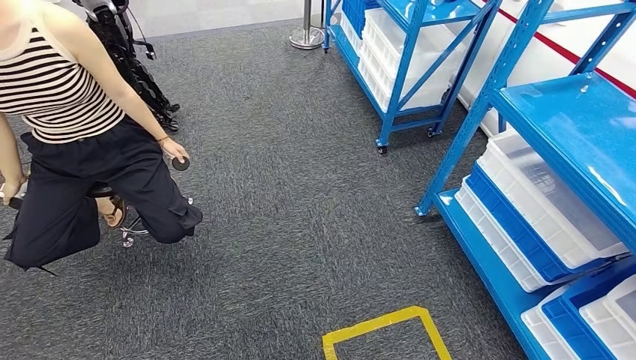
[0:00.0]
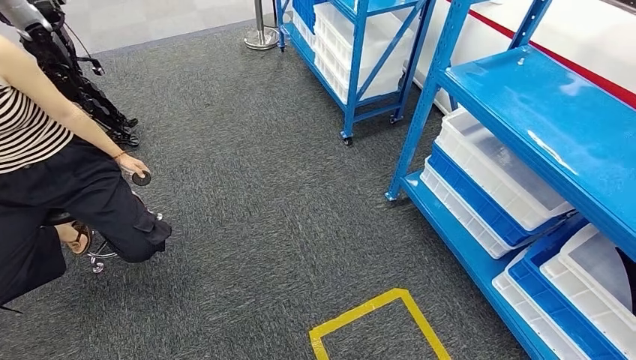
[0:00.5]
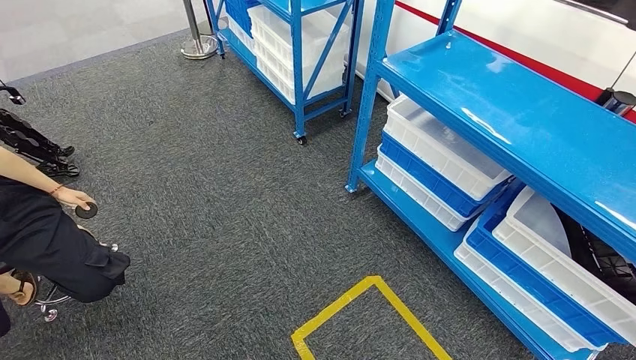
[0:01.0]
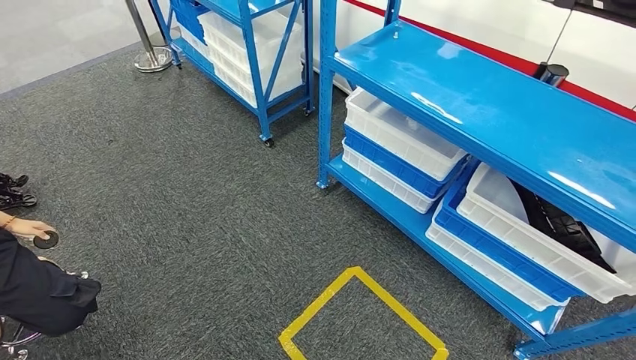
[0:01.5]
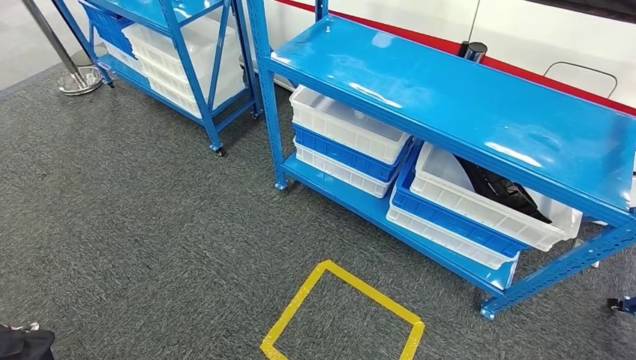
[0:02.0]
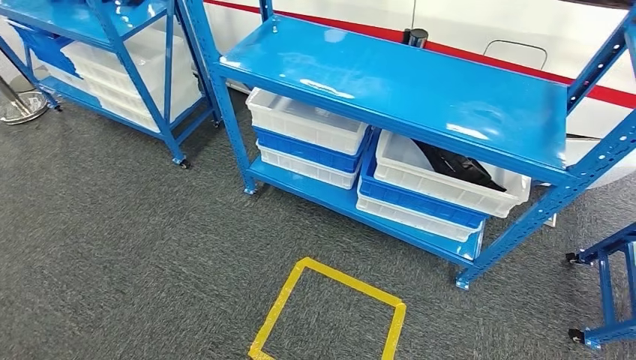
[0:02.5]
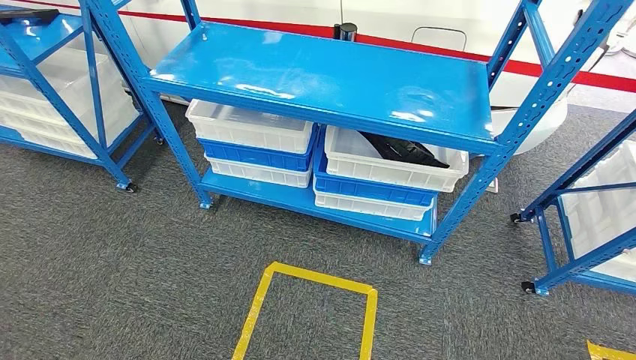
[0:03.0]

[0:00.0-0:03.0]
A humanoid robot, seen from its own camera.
Step, 0:00.0 to 0:03.0: Move to the initial position of the shelf.

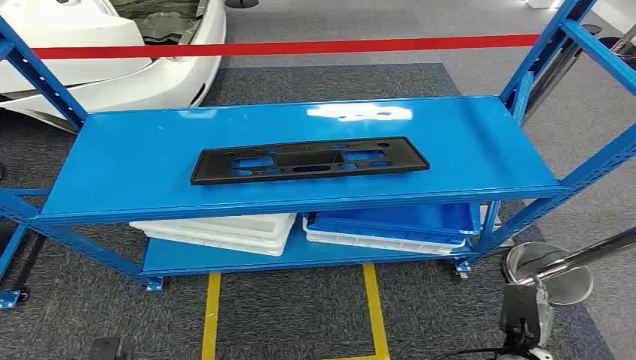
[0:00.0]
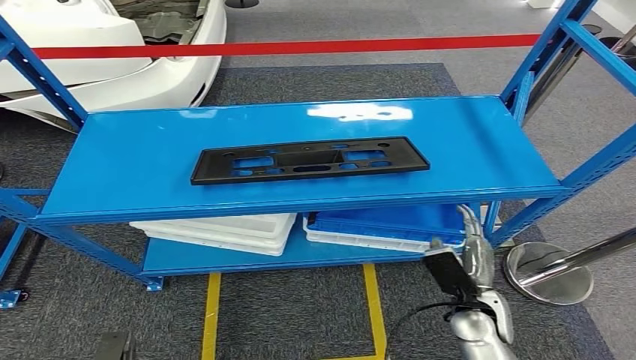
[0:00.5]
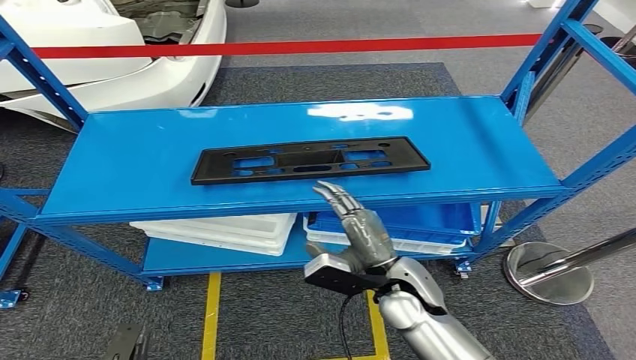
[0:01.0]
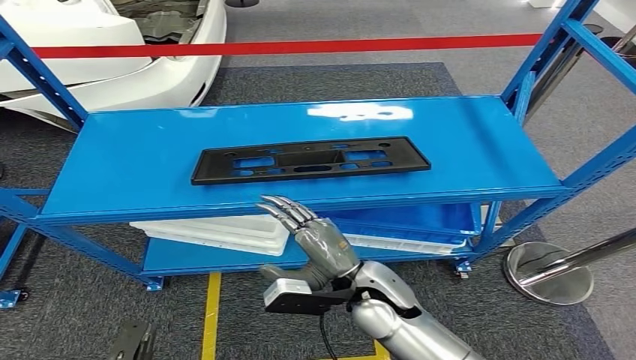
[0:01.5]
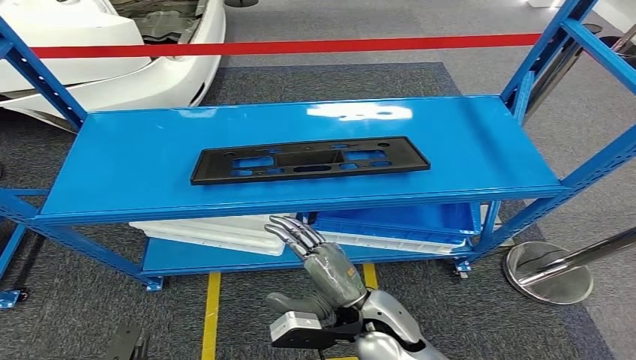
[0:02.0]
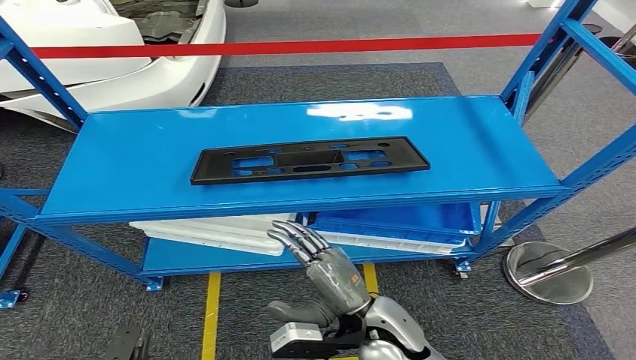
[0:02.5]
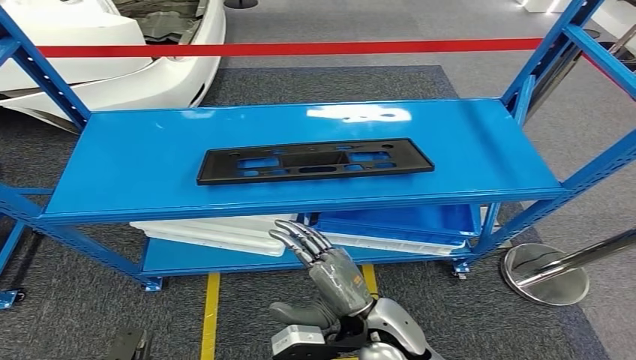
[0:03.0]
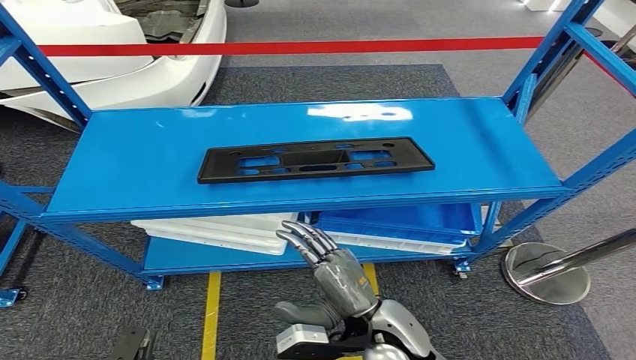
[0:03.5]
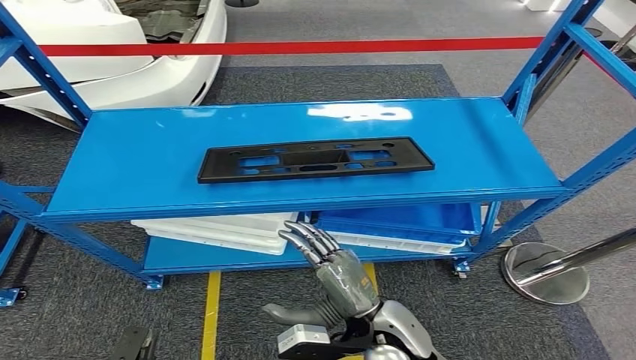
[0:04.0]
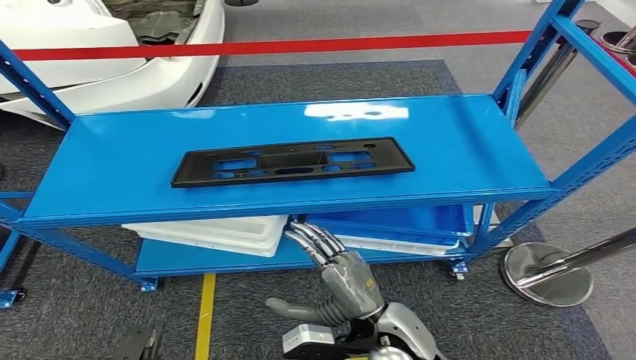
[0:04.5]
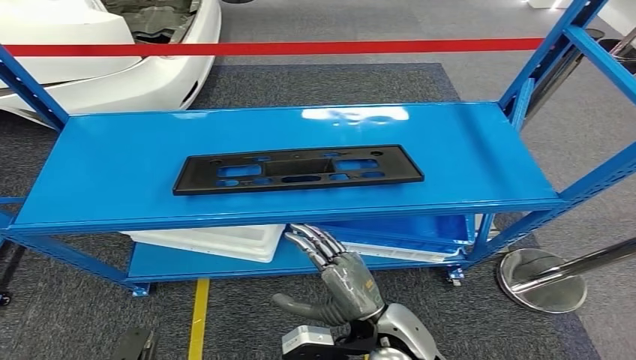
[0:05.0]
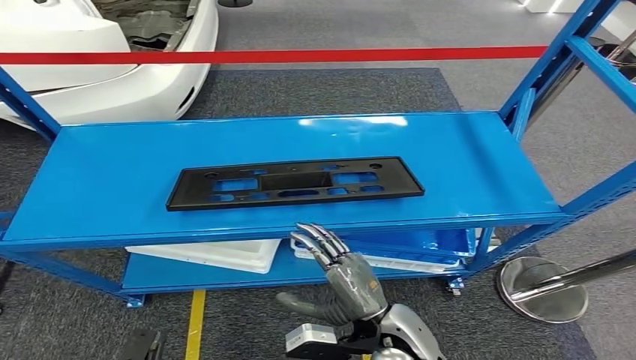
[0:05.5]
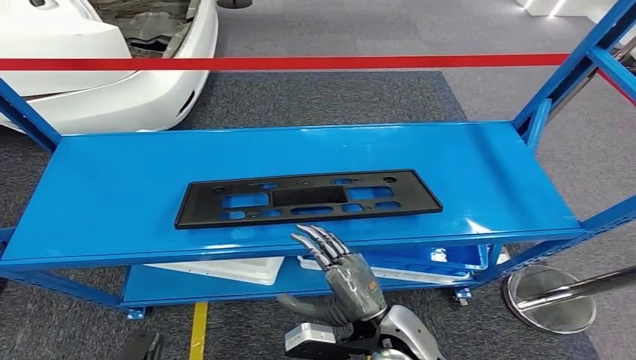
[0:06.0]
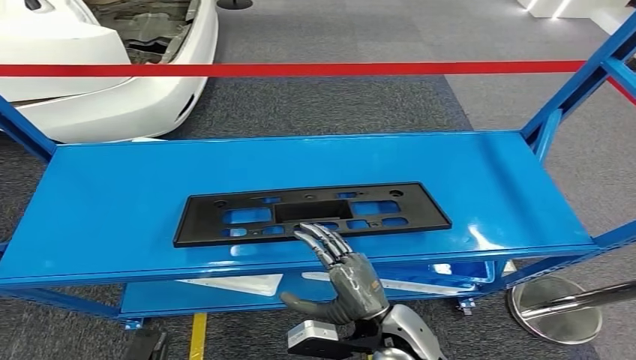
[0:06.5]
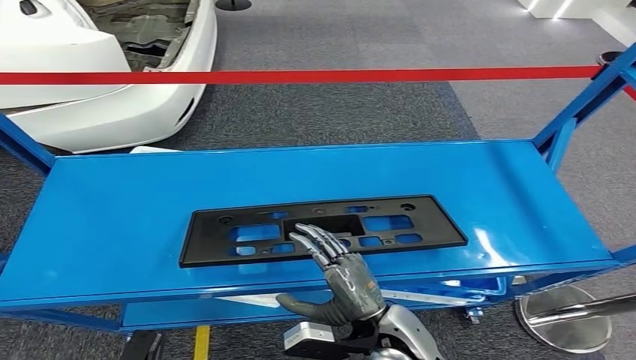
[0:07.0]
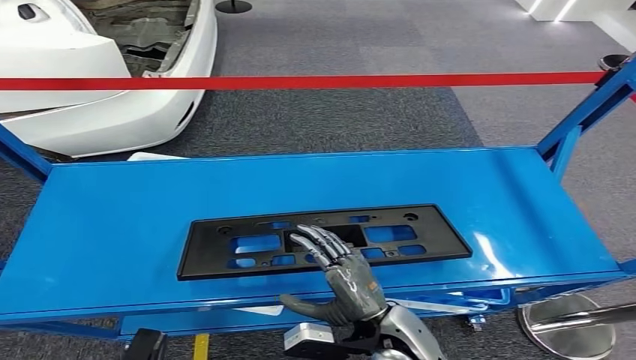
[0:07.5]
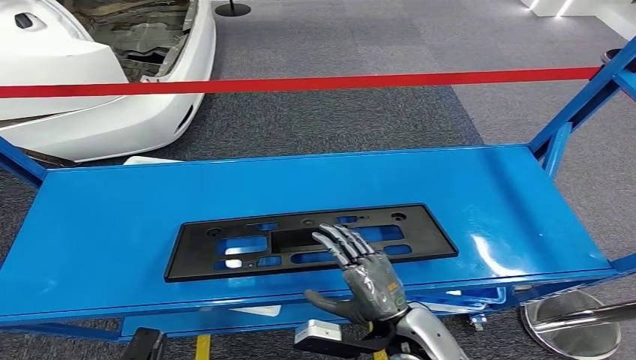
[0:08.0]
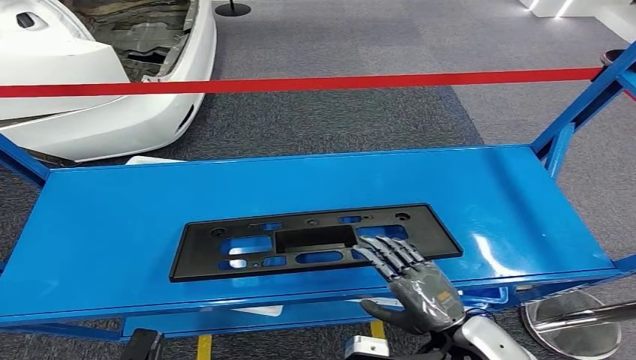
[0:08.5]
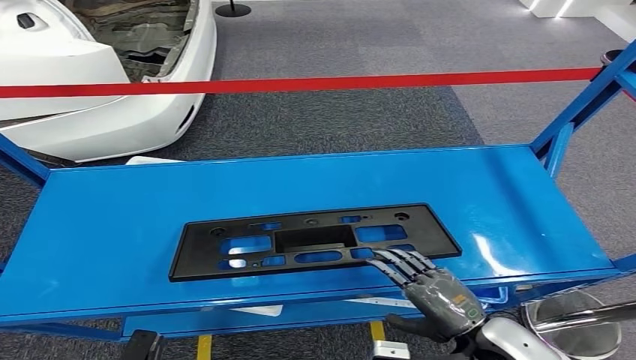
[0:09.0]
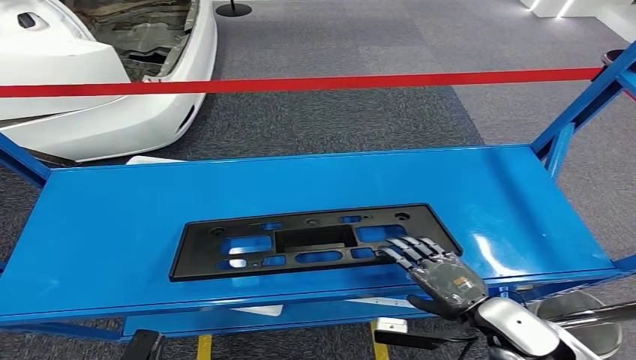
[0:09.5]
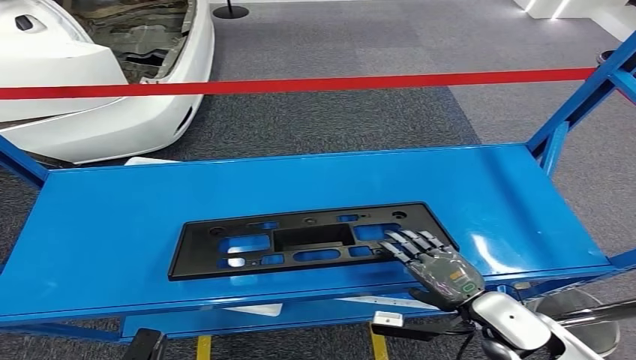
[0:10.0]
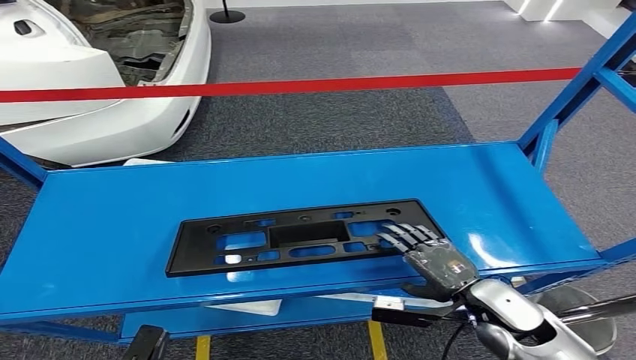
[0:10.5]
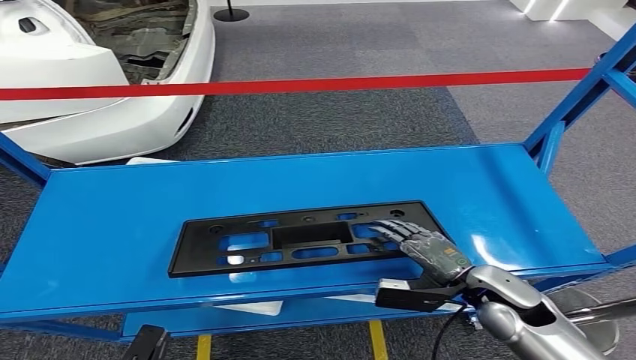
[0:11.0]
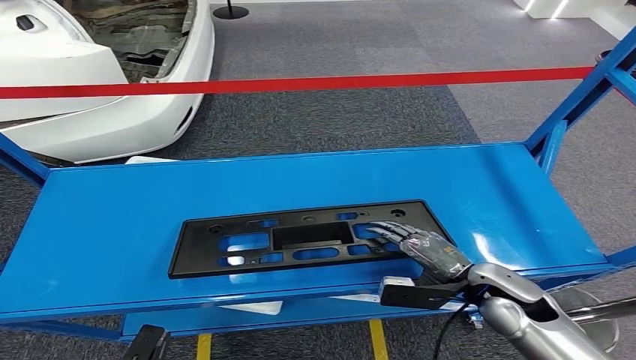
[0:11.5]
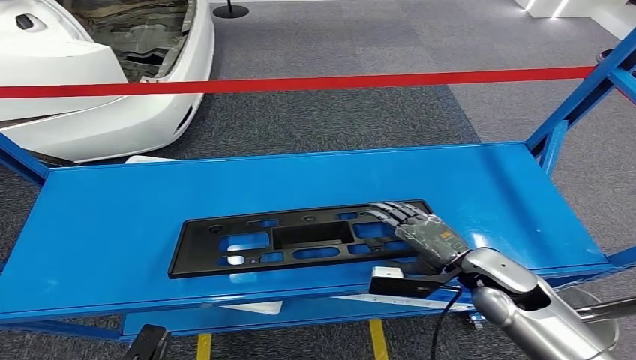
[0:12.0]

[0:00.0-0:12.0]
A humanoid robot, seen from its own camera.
0:02.0 to 0:04.0: There are only small adjustments of the hands.
0:08.0 to 0:10.0: The right hand heads to the right, covering roughly 15 cm.
0:10.0 to 0:12.0: The right hand shifts about 5 cm forward.

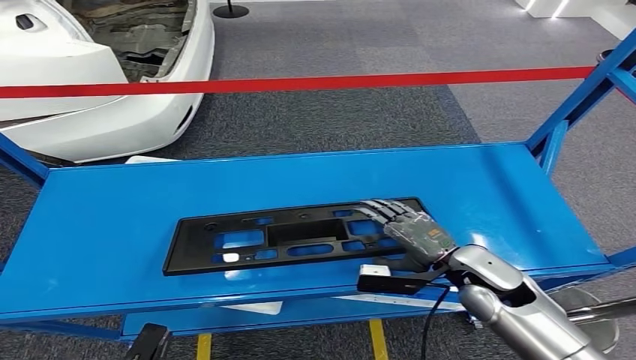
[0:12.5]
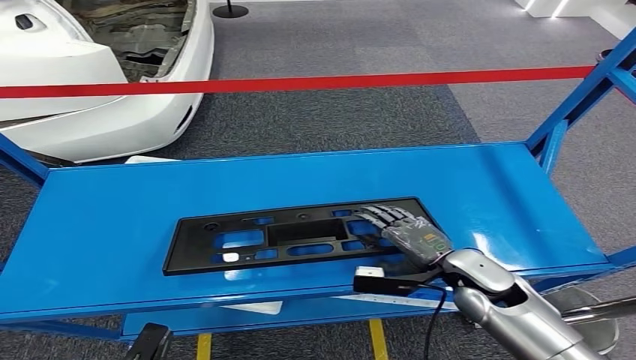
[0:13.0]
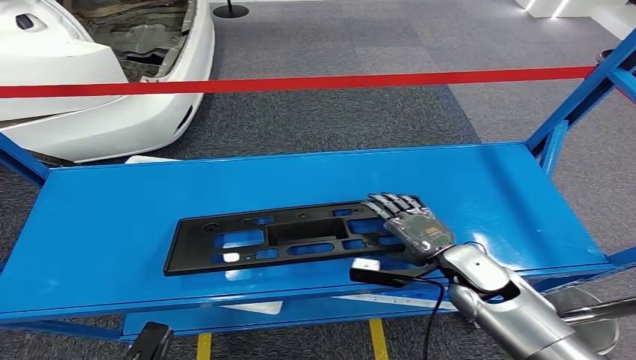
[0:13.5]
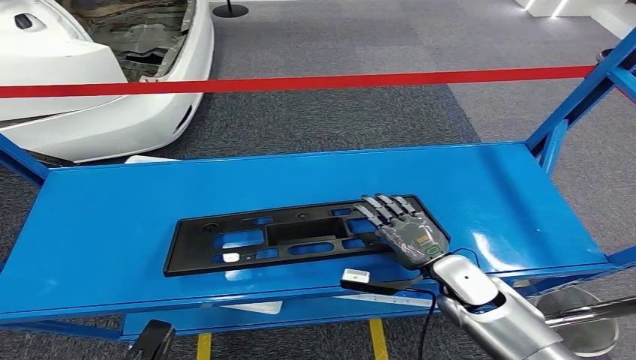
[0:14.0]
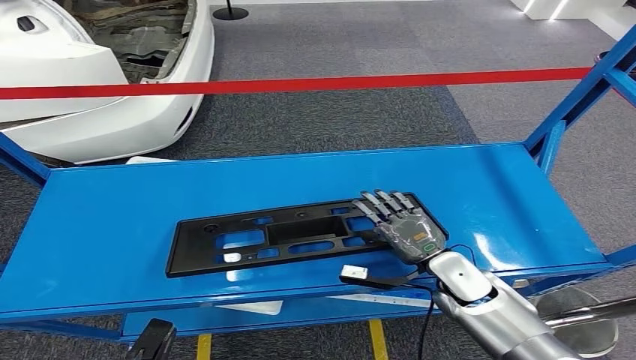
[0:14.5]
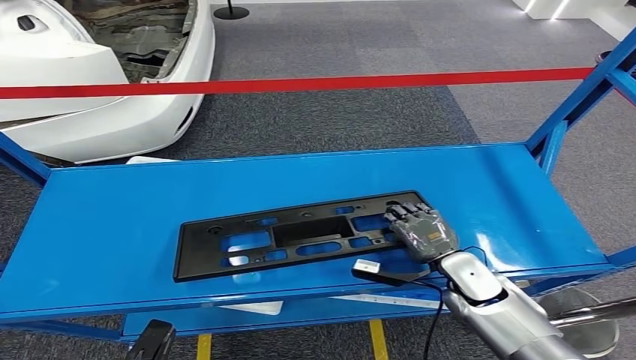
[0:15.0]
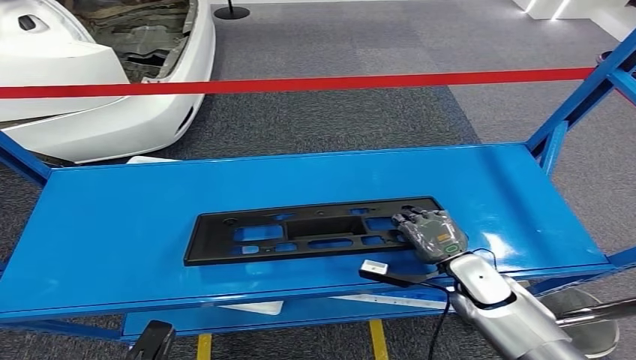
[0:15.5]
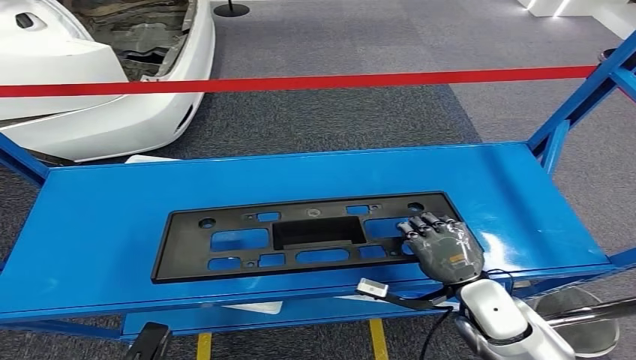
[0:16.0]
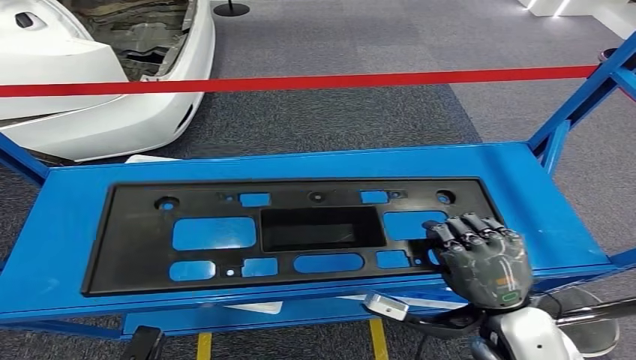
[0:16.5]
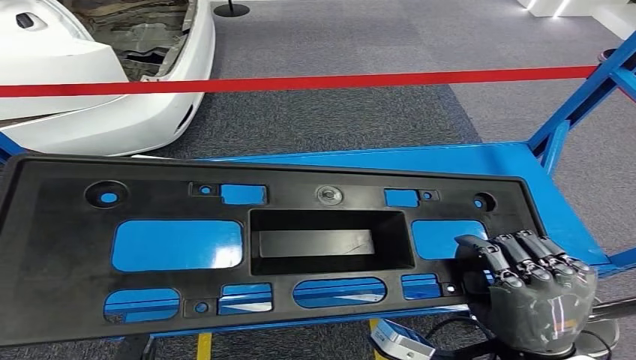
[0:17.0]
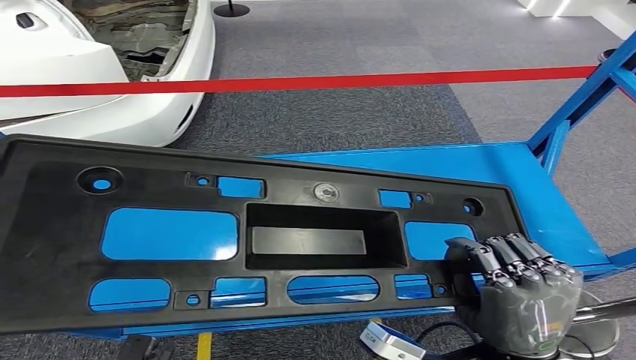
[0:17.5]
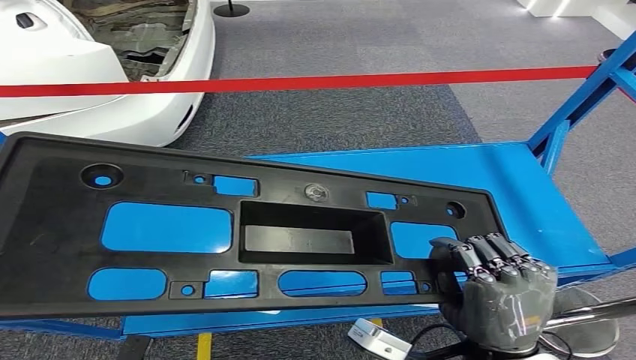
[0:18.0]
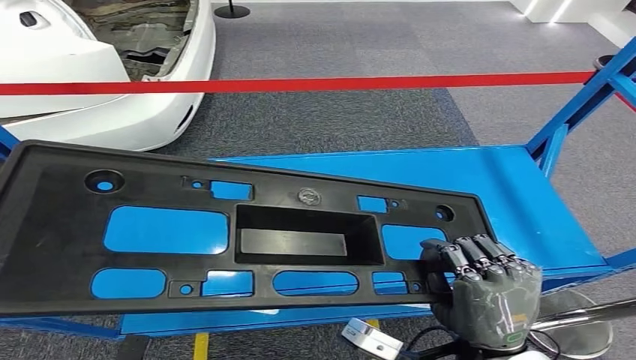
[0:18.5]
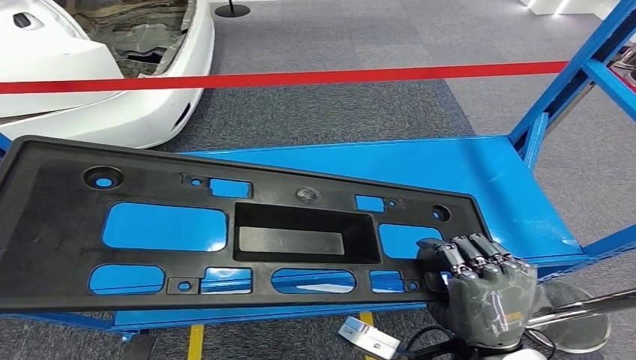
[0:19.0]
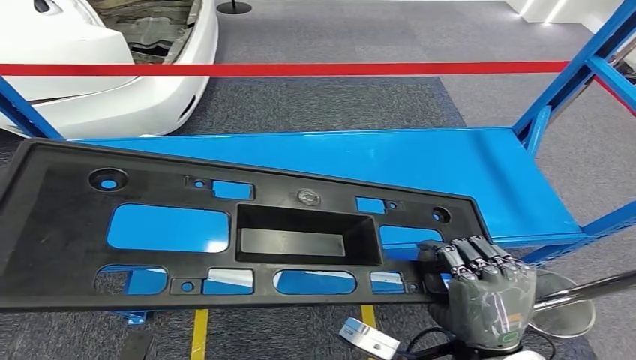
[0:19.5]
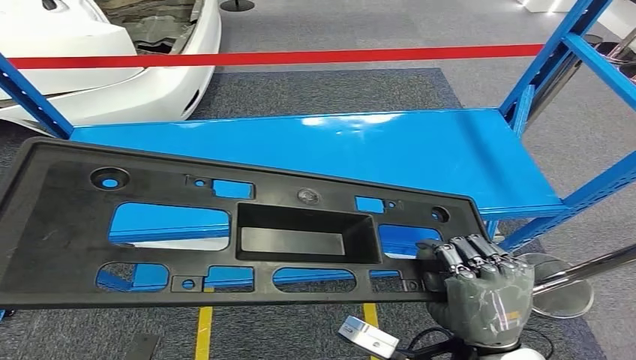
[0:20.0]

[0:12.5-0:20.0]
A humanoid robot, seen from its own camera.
Step, 0:12.5 to 0:16.5: Pick up the large material from the shelf.
0:12.5 to 0:14.5: The right hand goes approximately 5 cm downward.
